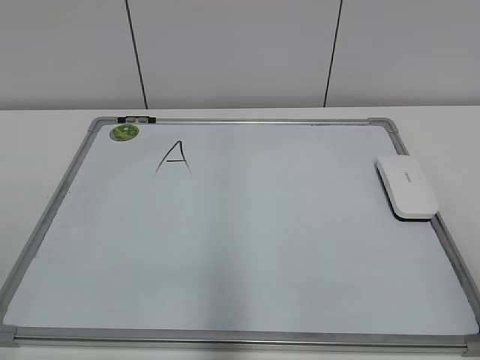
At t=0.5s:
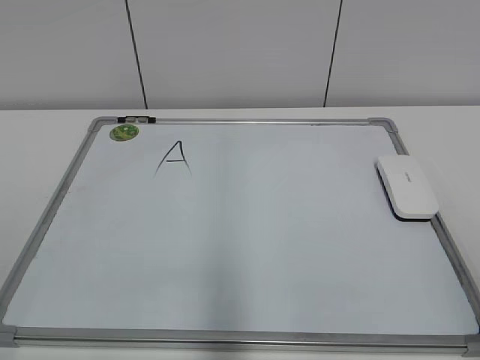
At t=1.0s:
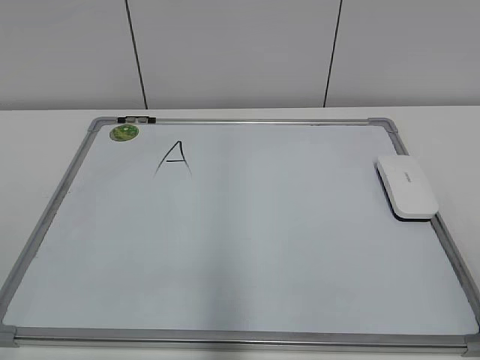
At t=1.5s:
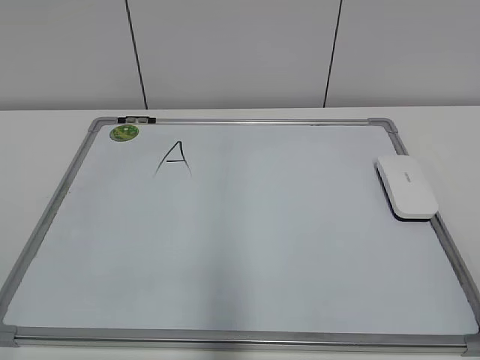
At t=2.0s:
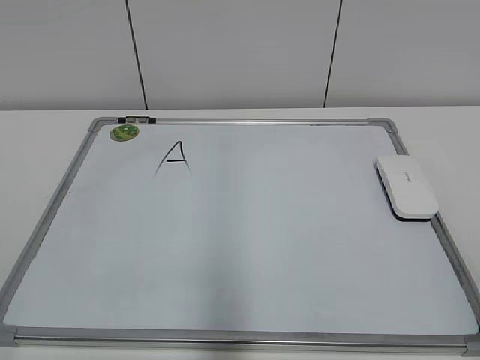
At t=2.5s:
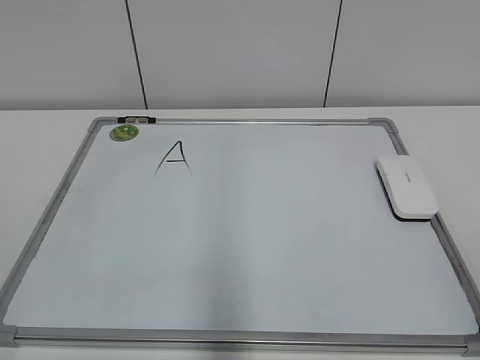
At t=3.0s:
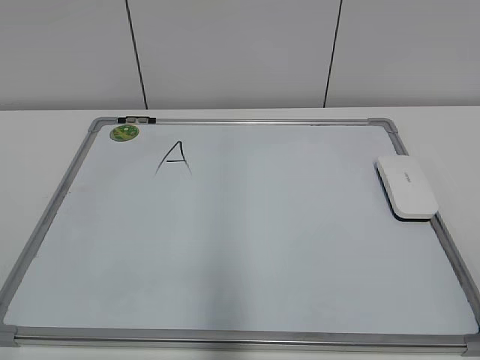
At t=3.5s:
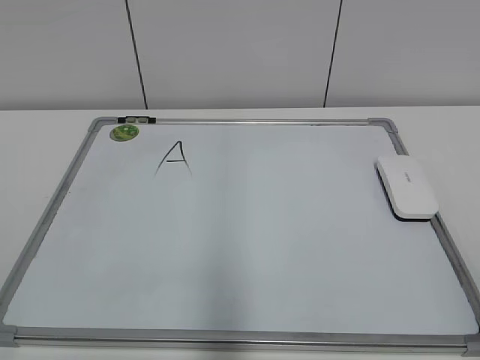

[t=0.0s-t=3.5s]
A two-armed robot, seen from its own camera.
Task of the whole recording: pick up the eraser on the blackboard and erase the letter "a".
t=2.0s to t=3.5s: Neither gripper changes place.
